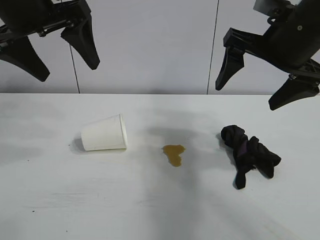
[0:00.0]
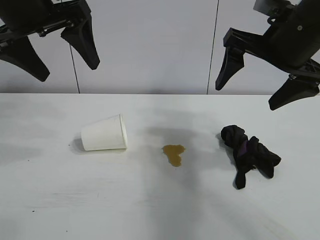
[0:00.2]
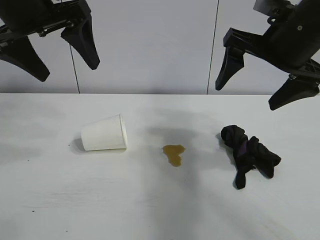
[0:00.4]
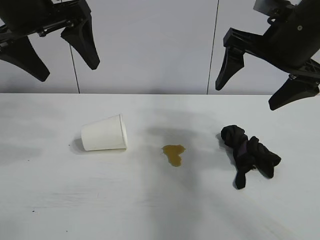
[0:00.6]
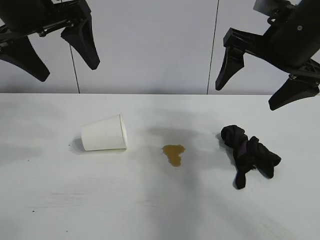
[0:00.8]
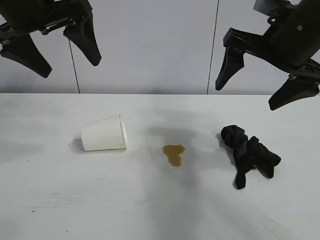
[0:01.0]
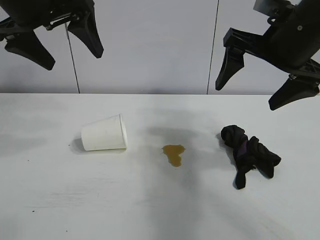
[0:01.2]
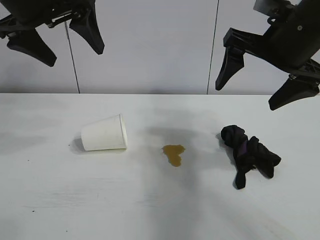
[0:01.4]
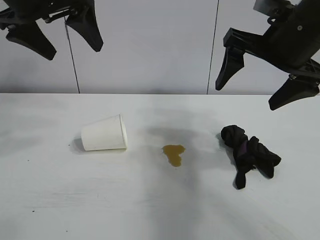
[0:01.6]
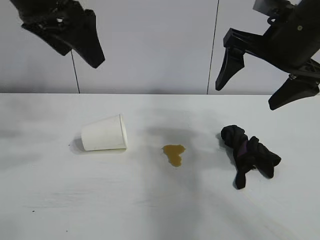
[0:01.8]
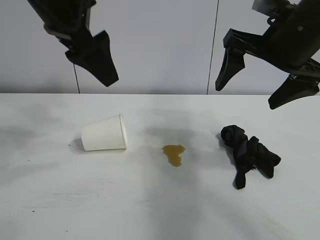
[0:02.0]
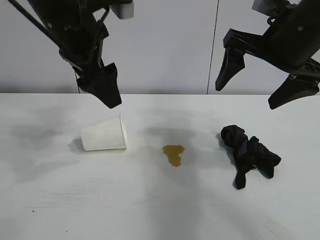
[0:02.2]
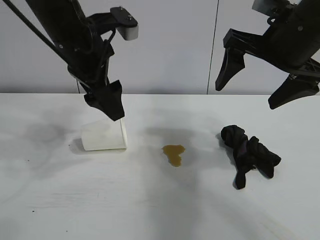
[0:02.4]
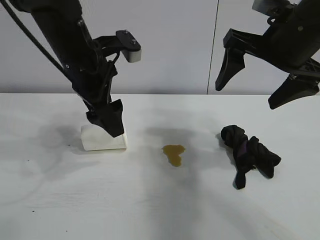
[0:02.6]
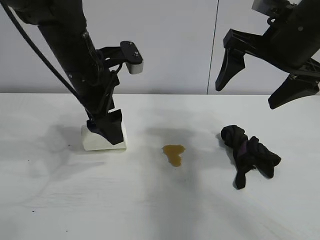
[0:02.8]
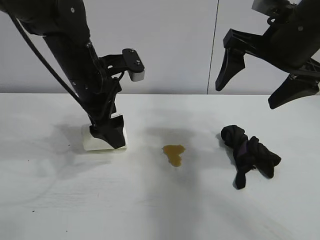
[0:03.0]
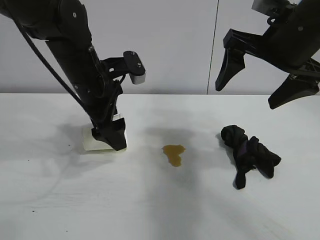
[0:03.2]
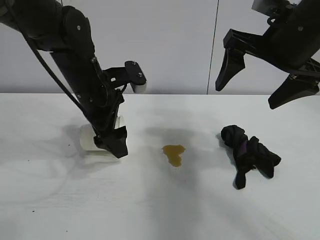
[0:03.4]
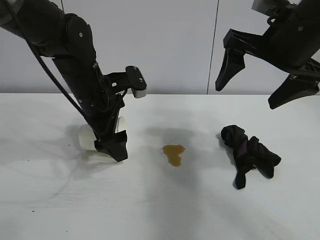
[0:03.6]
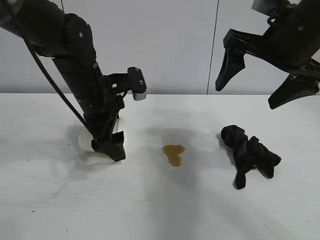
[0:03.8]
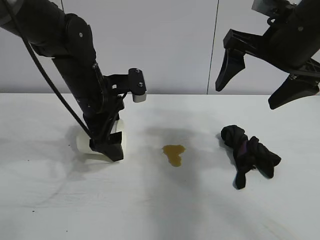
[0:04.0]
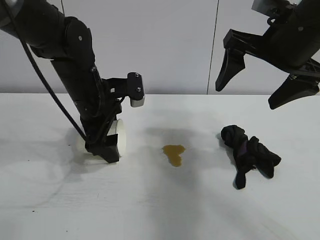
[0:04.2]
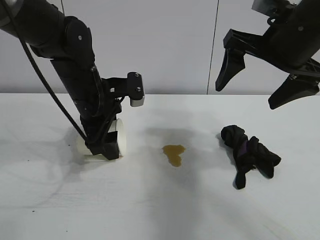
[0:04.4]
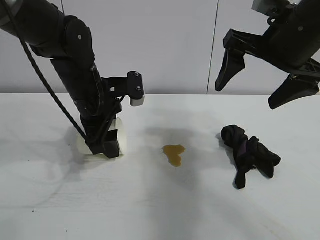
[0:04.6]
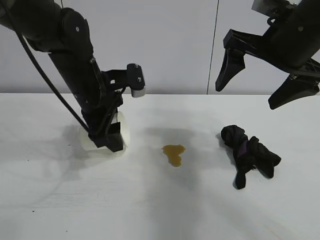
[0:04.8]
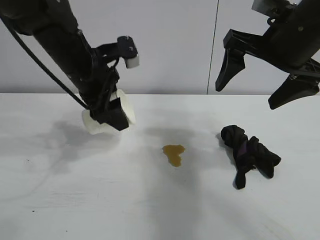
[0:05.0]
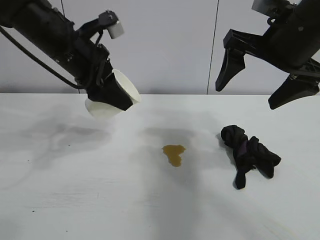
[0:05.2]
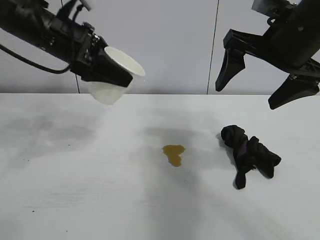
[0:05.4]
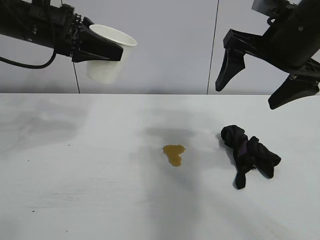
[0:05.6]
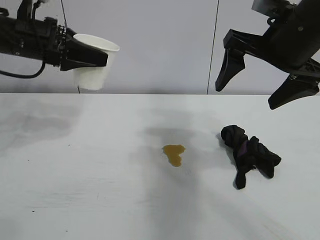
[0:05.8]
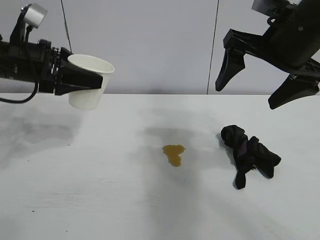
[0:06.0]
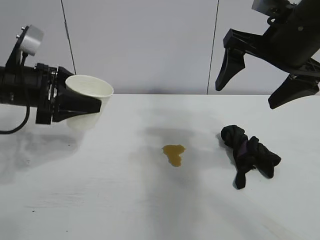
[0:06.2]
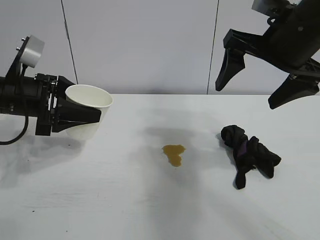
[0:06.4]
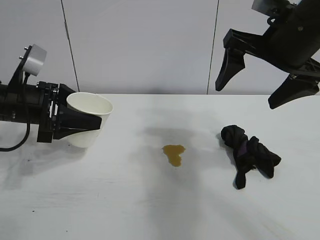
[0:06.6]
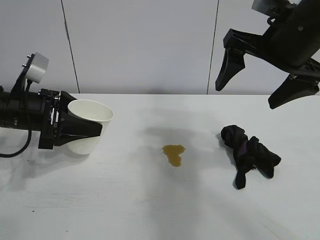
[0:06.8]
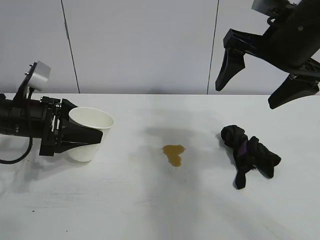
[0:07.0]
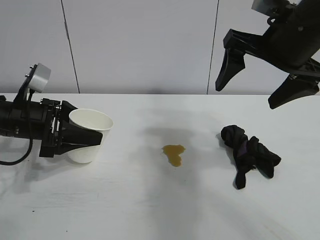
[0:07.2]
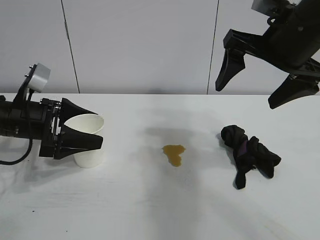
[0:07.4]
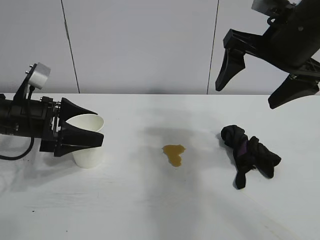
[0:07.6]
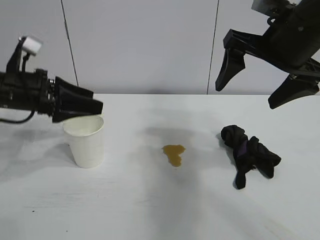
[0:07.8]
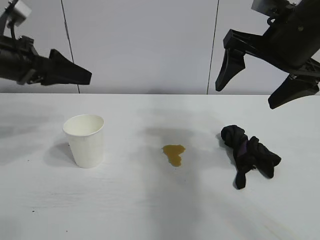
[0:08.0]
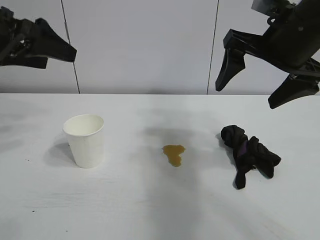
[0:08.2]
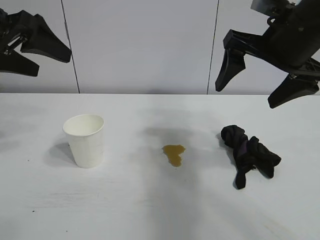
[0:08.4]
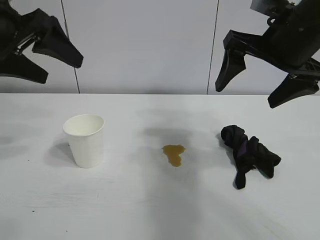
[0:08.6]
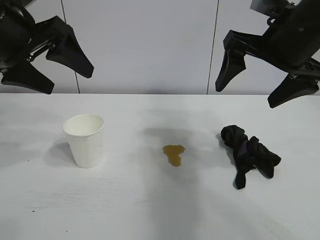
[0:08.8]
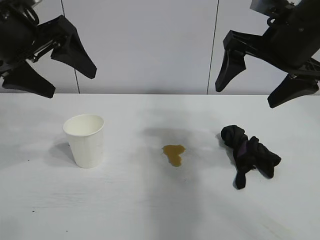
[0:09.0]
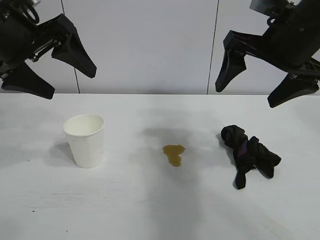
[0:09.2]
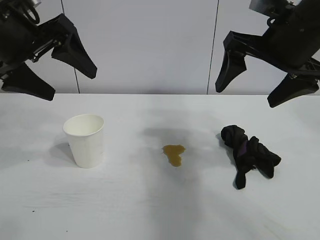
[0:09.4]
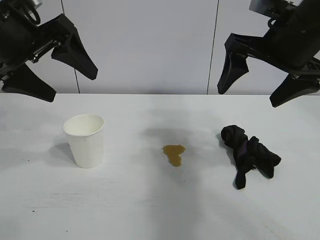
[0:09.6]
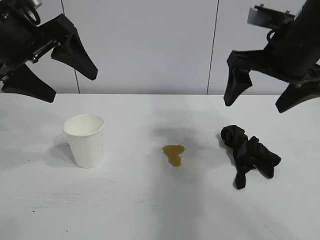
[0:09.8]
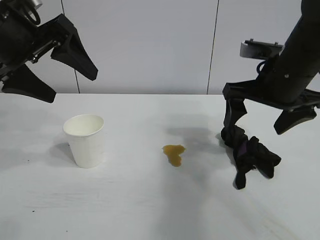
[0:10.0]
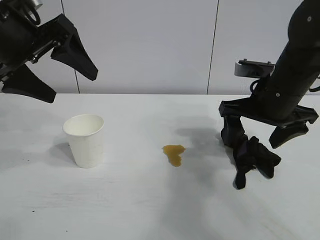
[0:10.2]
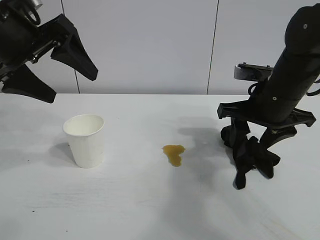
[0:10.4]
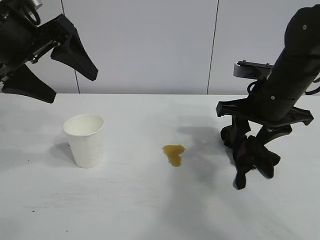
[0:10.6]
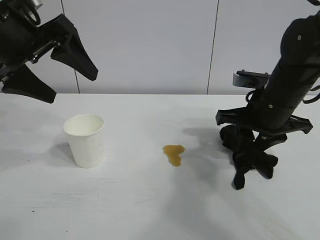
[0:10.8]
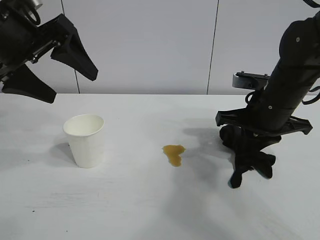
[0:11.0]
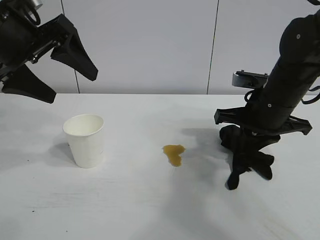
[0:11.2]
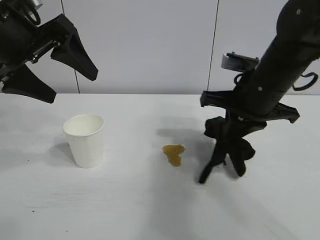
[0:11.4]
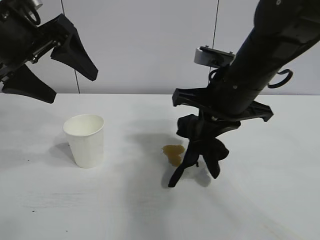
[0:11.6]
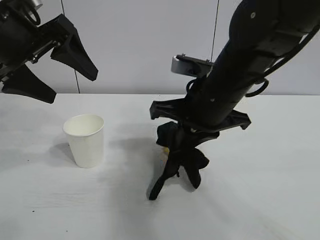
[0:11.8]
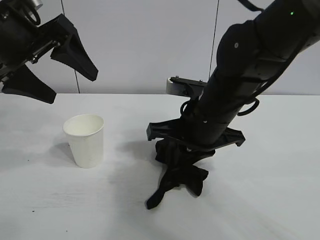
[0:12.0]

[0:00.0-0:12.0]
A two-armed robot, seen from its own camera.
Task of the whole recording: the left gripper pick up the fallen cup and place it upright, the right gripper grasp the black rag and wipe the stain on the table, the right gripper put the black rag back in its original position.
Step, 0:01.0 to 0:04.2: Grasp the paper cup with left gripper.
Step, 0:04.4 to 0:07.2: Stand the paper cup upright with left gripper.
Step, 0:07.6 to 0:11.0: Grasp the rag with right gripper.

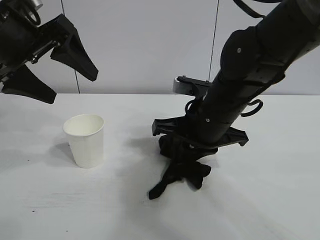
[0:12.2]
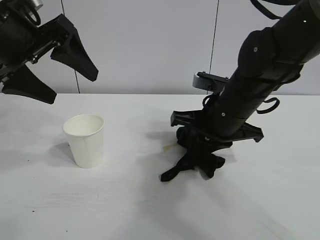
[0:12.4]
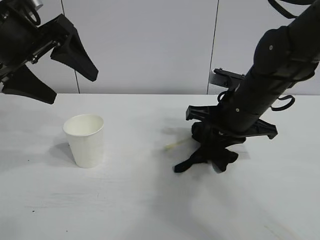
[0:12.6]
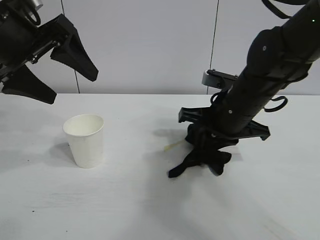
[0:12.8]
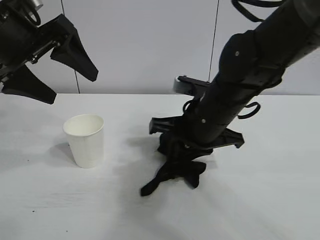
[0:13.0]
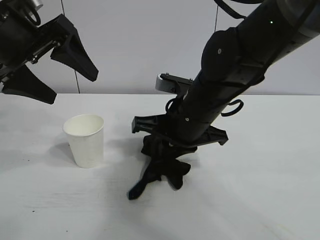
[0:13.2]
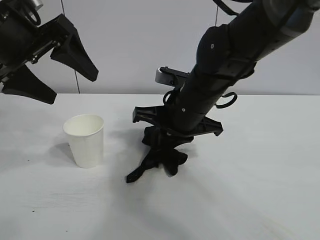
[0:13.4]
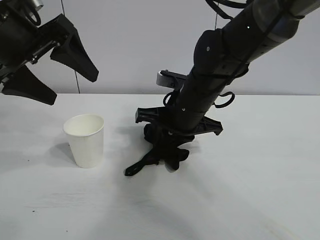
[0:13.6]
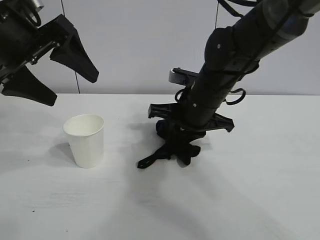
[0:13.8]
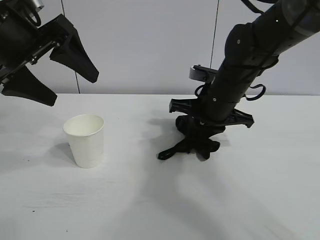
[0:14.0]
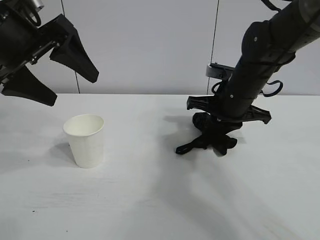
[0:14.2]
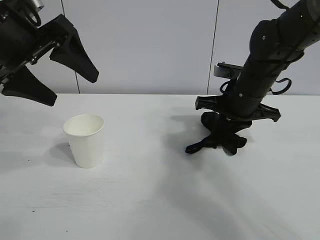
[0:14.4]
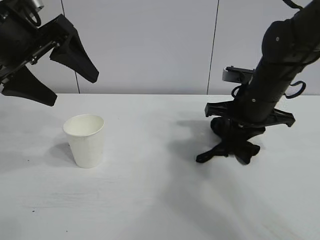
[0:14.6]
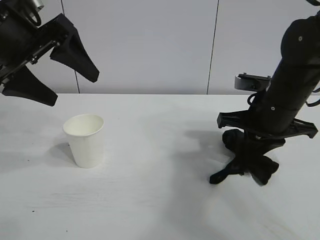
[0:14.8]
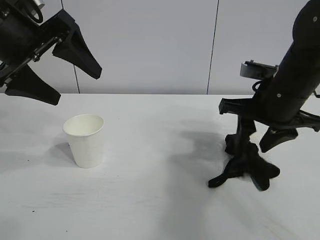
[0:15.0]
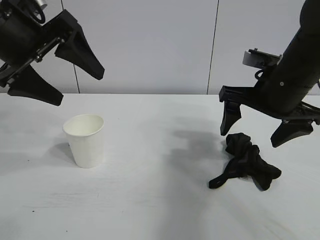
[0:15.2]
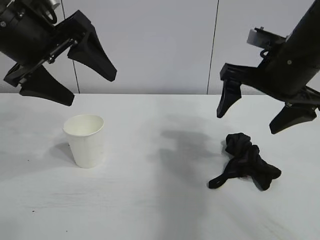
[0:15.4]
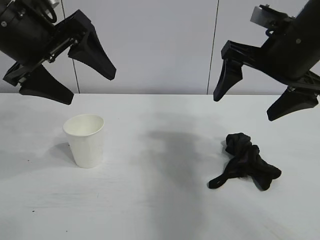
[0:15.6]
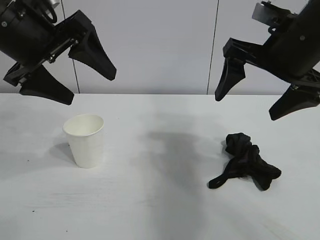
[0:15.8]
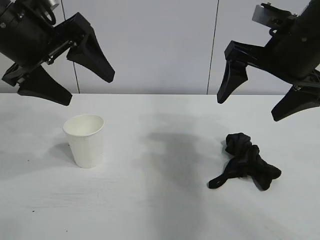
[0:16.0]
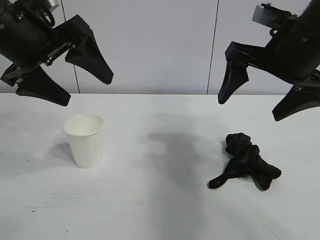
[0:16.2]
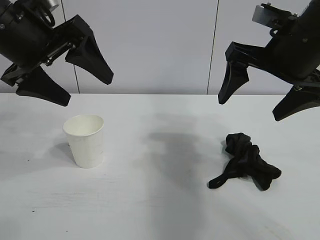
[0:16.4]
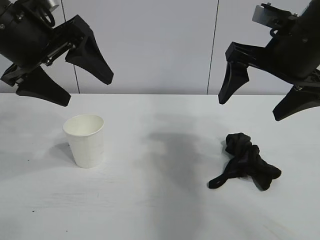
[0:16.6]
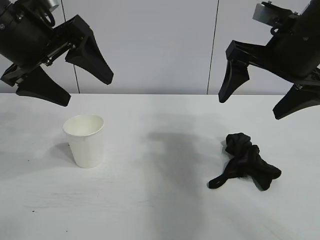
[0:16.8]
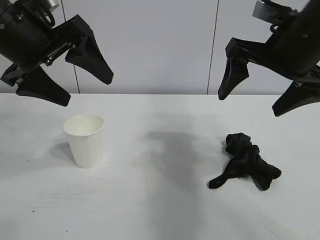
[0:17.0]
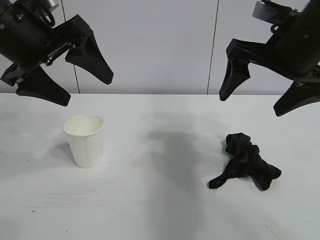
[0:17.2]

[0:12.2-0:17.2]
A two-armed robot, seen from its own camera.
Task of the whole recording: the left gripper pick up the fallen cup and place it upright, the right gripper grasp the black rag and wipe the stain on the table, the right gripper put the black rag back in its original position.
Step, 0:12.2 to 0:14.8: Wipe the stains off the table with the rag with right gripper.
